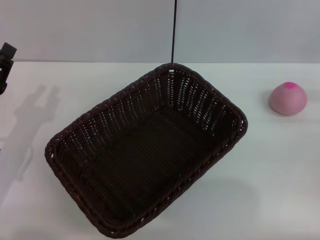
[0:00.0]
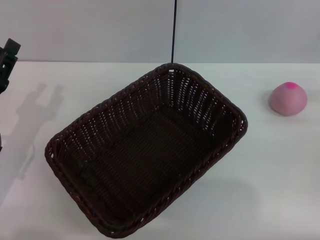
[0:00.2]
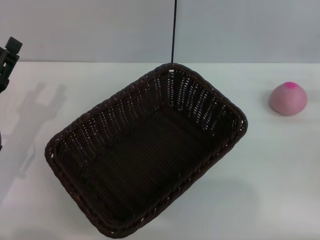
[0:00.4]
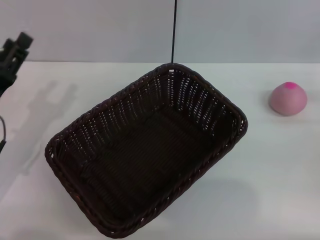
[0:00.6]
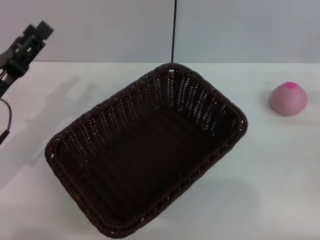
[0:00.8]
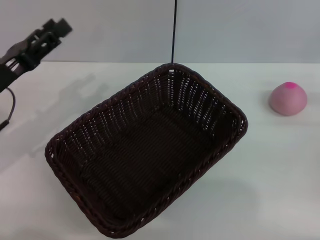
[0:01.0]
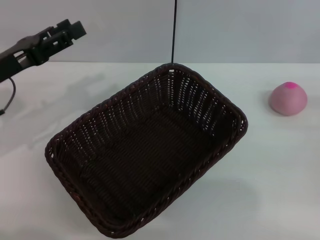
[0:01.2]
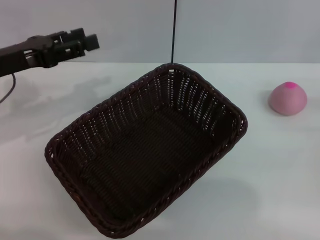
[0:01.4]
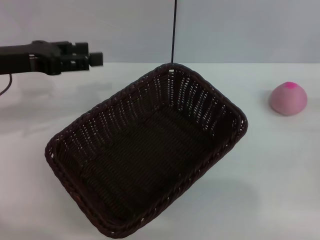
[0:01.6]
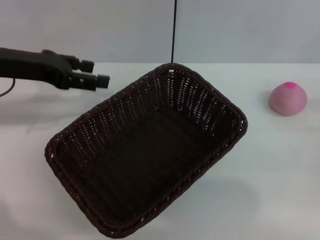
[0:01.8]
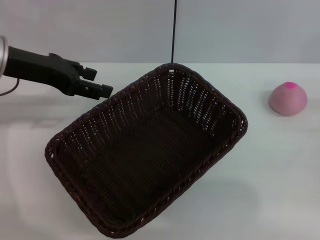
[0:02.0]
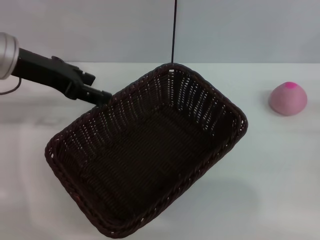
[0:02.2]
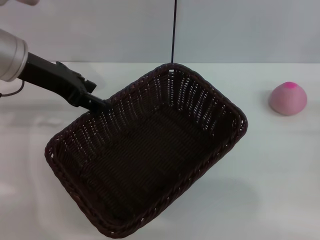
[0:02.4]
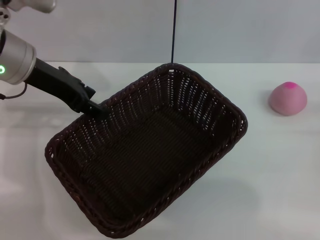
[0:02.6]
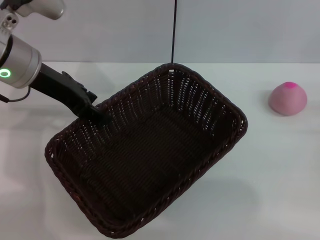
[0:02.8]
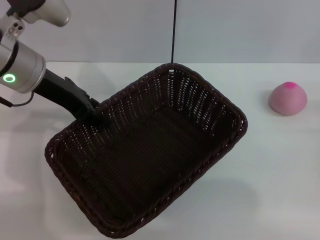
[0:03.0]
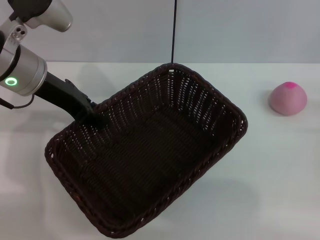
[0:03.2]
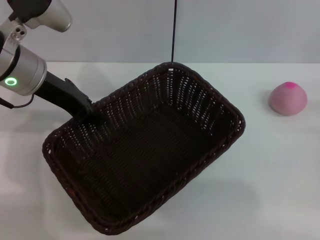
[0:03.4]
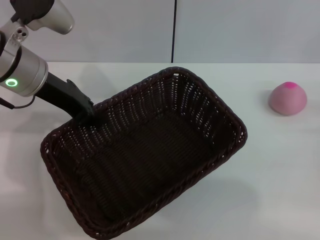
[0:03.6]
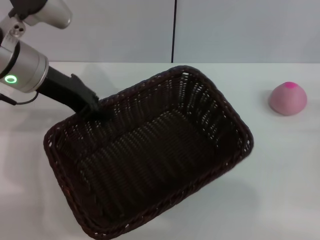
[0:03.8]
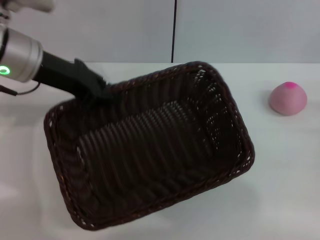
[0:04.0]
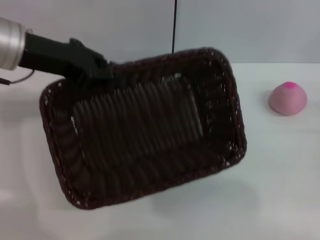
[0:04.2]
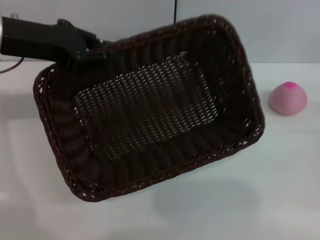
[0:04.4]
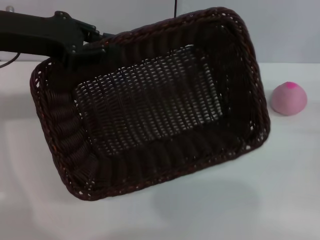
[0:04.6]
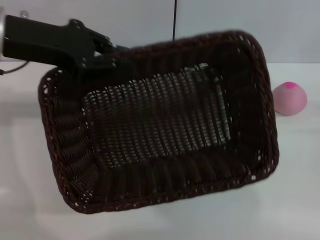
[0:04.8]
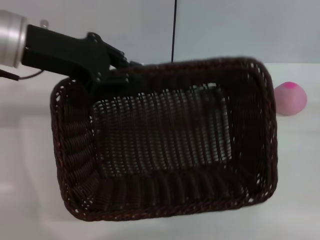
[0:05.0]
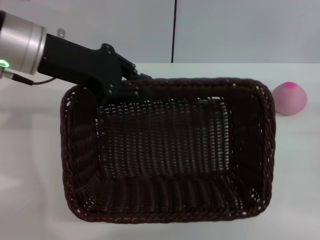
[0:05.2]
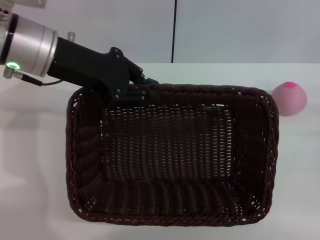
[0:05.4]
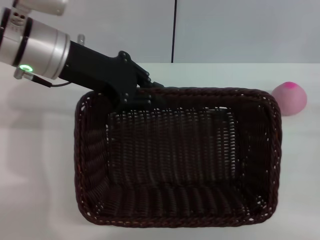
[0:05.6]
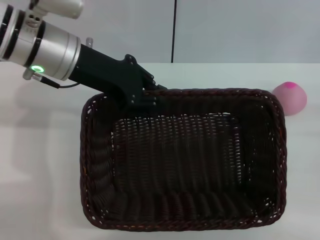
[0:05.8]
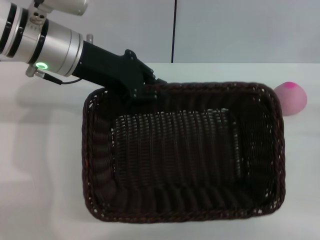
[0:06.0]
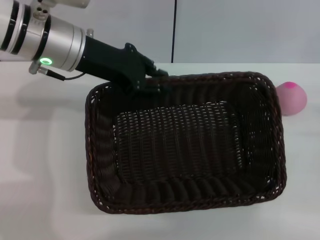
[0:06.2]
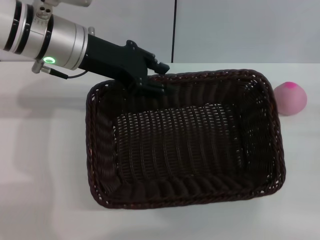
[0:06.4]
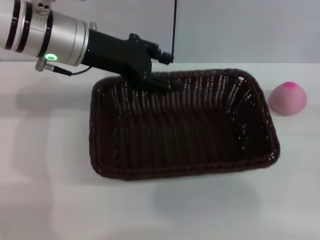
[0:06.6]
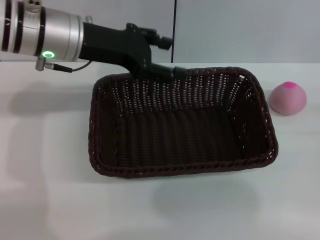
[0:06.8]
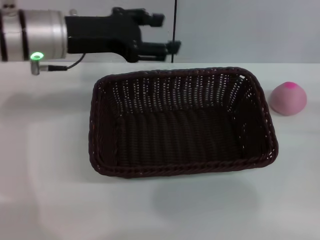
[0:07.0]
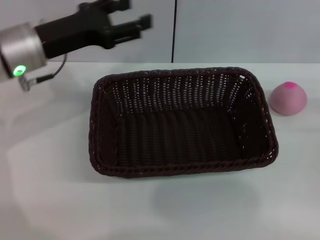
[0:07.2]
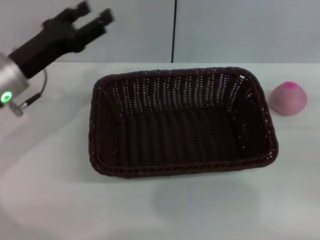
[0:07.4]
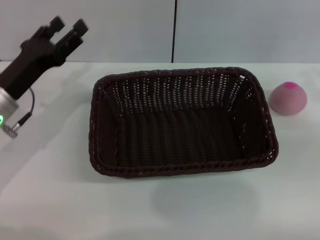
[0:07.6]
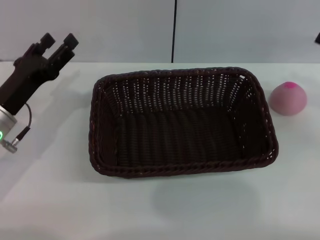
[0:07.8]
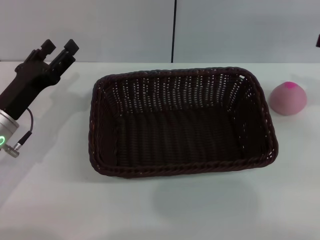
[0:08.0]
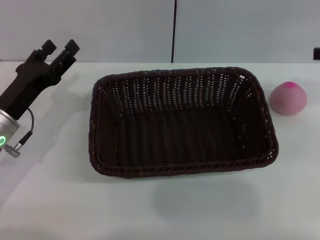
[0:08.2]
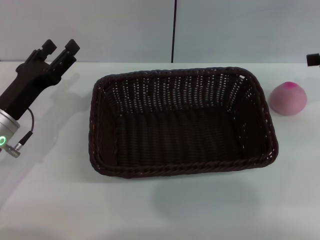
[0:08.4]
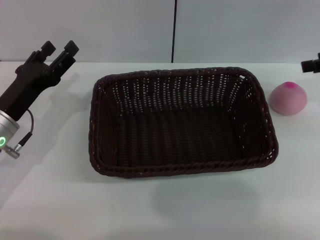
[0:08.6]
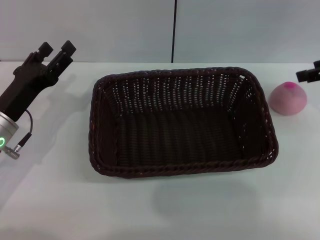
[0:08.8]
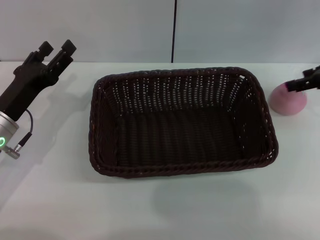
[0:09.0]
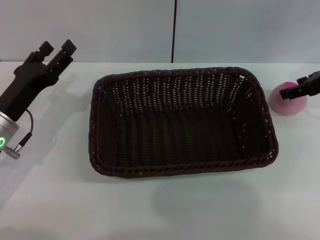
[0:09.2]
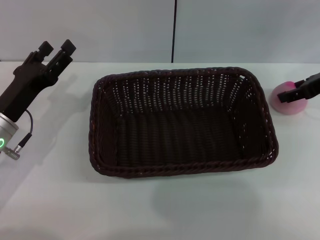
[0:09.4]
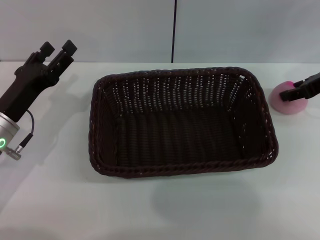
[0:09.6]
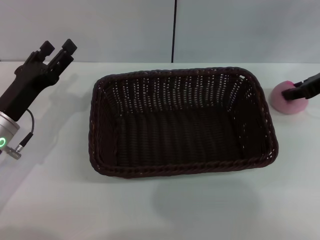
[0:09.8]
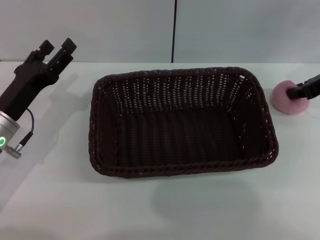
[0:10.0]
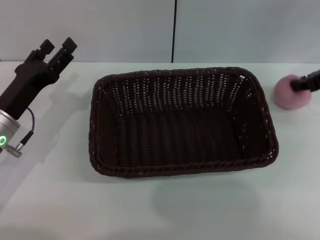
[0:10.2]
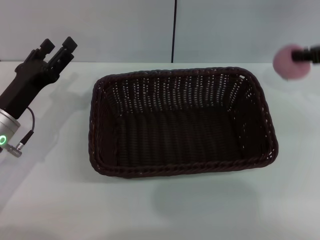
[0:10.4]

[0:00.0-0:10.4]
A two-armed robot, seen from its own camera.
Step, 0:00.0 to 0:04.2: Pick up the dark basket with the left gripper.
0:00.0 to 0:01.4: The left gripper travels upward and forward by some 15 cm, and opens up.
0:01.4 to 0:03.0: The left gripper travels to the right by approximately 10 cm.
0:03.0 to 0:04.4: The left gripper shifts by some 5 cm, and closes its fingers.
0:04.4 to 0:06.0: The left gripper is displaced to the right by some 10 cm.
0:06.0 to 0:07.4: The left gripper travels downward and to the left by roughly 10 cm, and opens.
0:07.4 to 0:09.0: The left gripper moves downward, roughly 5 cm. Meanwhile the right gripper moves forward, upward and to the left, some 15 cm, and opens up.
0:09.0 to 0:10.4: The right gripper closes up.

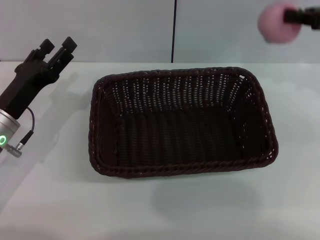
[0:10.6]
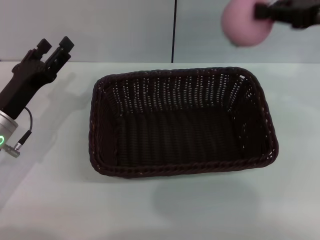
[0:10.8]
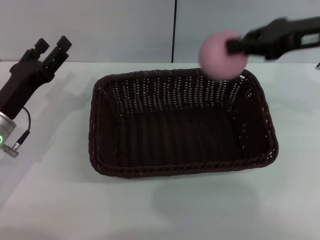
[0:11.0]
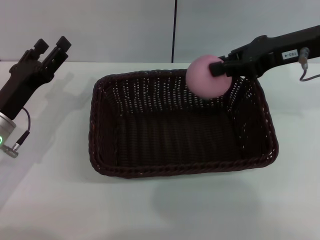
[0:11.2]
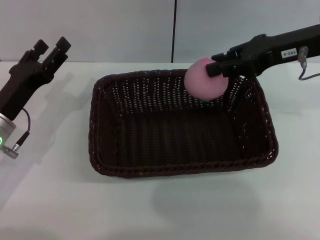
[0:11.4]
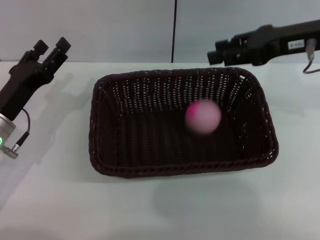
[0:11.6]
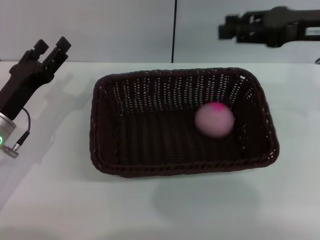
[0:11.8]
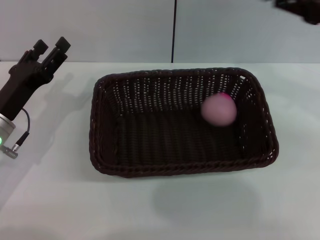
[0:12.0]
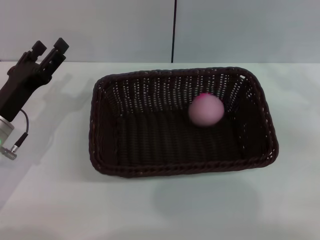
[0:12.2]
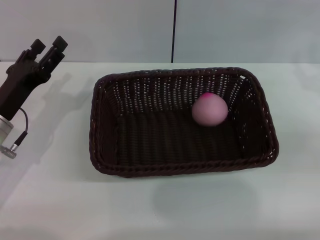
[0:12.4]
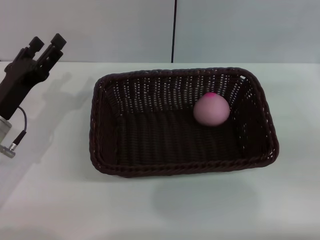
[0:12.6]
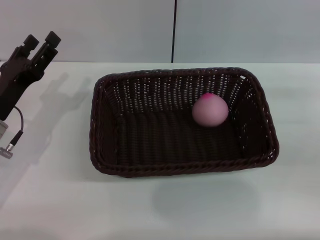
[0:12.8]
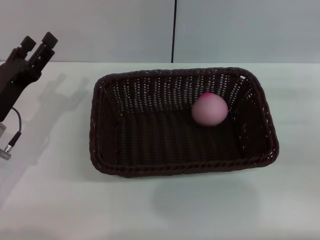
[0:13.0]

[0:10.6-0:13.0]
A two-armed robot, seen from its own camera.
0:10.6 to 0:11.8: The right gripper shifts some 5 cm to the left, and opens.
0:11.8 to 0:13.0: The right gripper shifts some 20 cm downward, to the right and backward.
